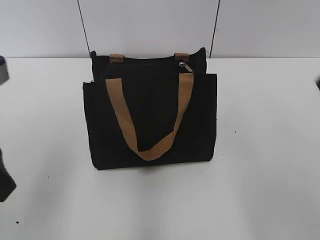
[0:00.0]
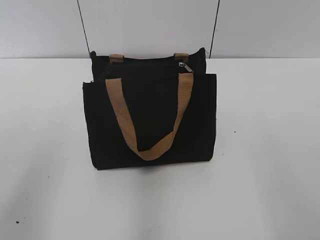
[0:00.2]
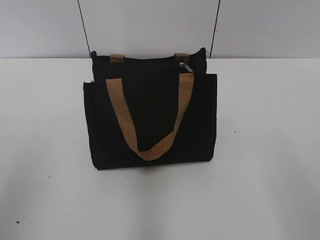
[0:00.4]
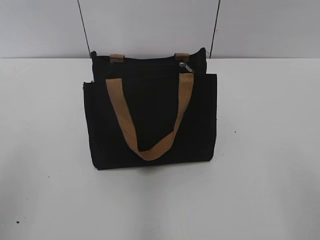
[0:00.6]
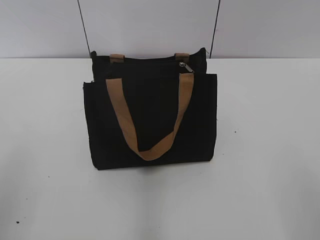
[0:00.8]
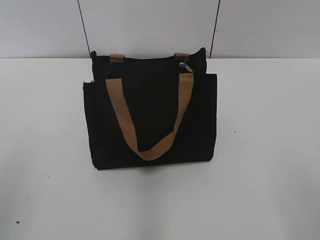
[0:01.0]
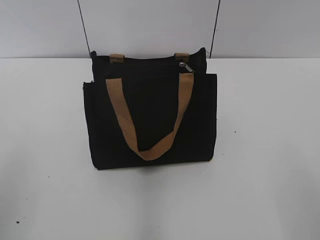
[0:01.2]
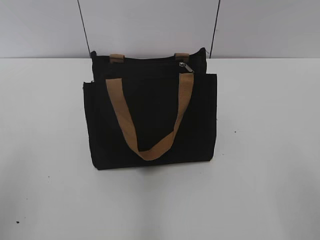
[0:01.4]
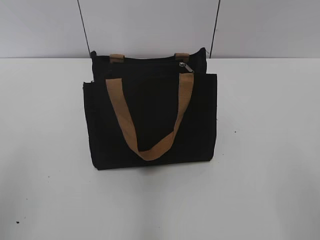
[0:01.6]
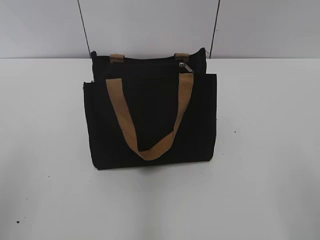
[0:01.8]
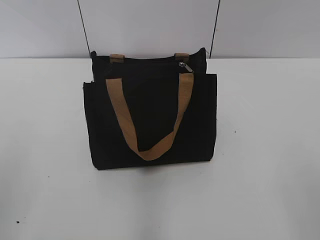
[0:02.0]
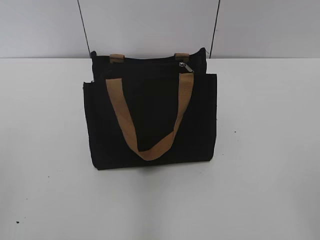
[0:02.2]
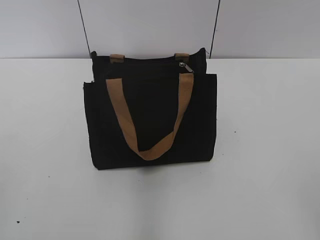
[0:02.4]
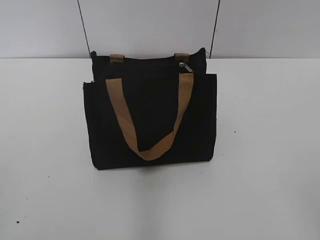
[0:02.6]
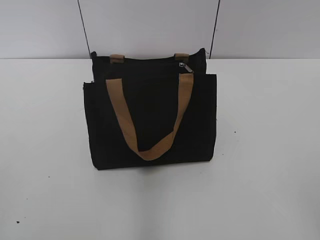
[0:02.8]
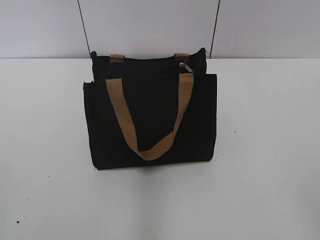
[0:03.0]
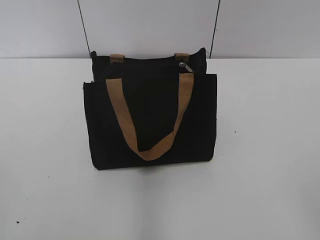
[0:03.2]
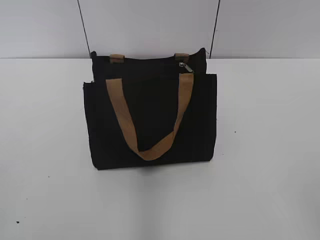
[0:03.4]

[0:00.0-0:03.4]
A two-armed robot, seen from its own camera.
0:00.0 to 0:01.6: The left gripper goes roughly 10 cm backward and to the left.

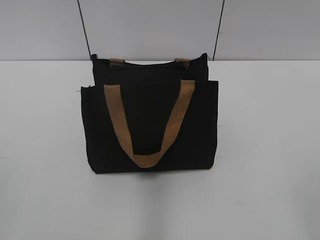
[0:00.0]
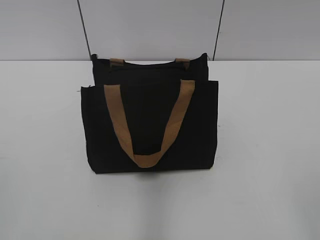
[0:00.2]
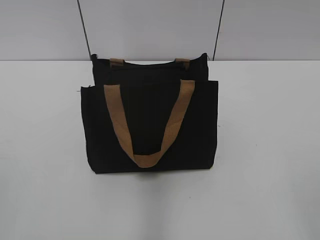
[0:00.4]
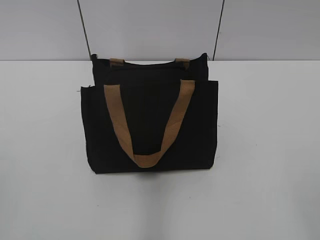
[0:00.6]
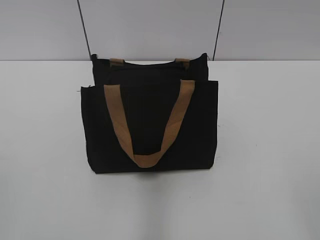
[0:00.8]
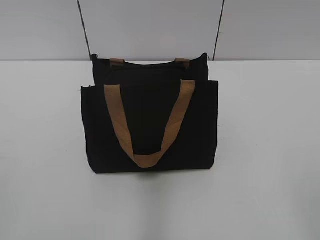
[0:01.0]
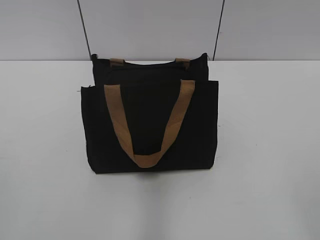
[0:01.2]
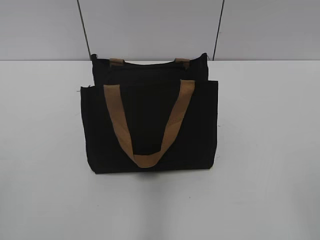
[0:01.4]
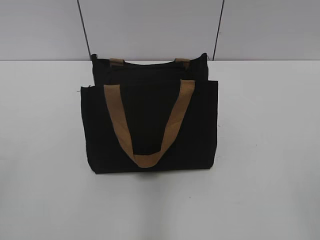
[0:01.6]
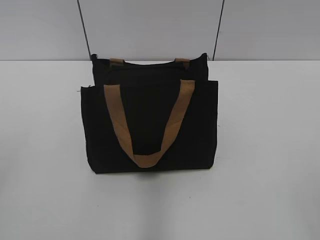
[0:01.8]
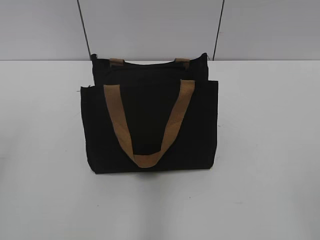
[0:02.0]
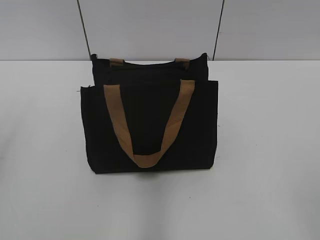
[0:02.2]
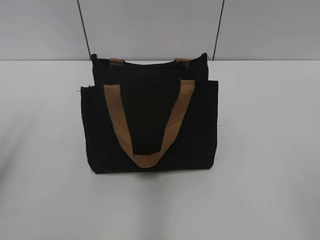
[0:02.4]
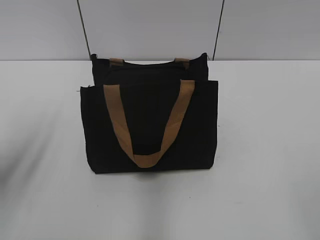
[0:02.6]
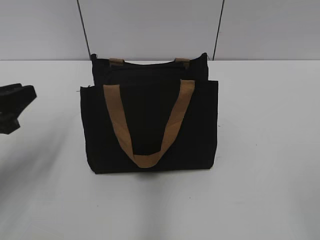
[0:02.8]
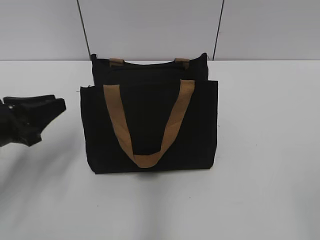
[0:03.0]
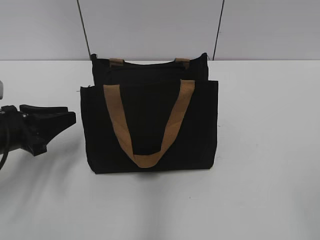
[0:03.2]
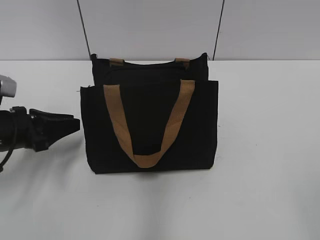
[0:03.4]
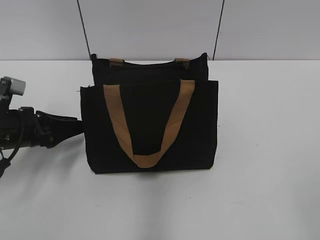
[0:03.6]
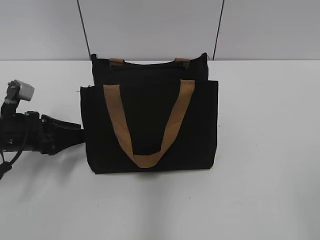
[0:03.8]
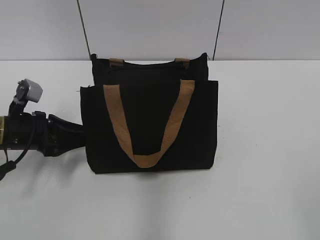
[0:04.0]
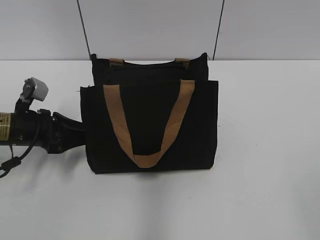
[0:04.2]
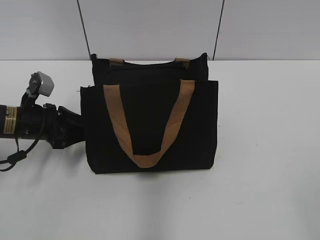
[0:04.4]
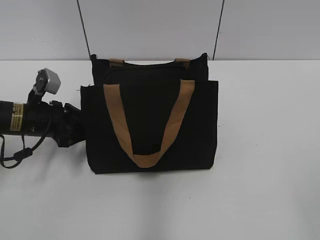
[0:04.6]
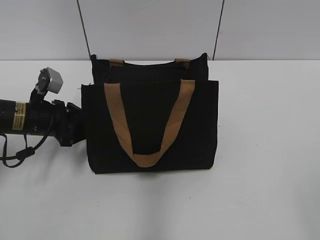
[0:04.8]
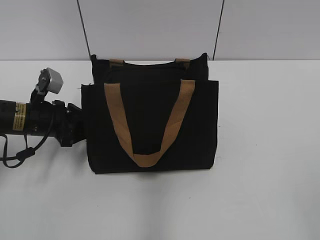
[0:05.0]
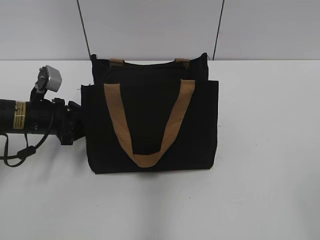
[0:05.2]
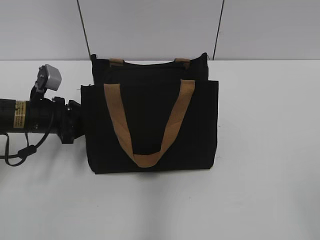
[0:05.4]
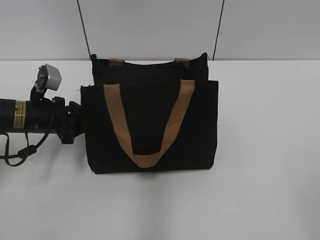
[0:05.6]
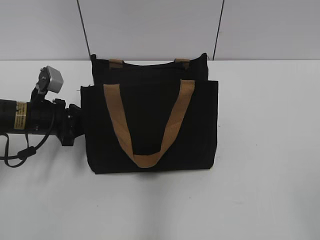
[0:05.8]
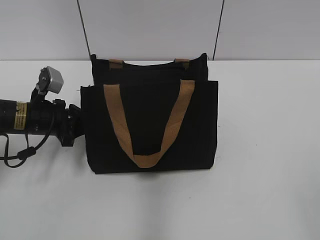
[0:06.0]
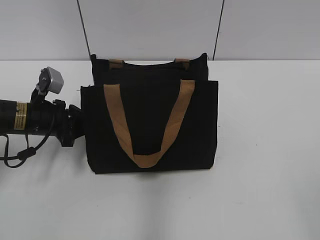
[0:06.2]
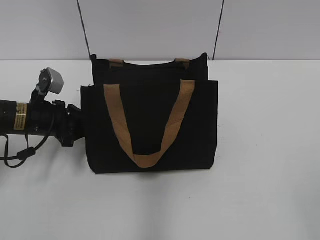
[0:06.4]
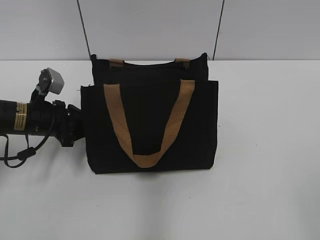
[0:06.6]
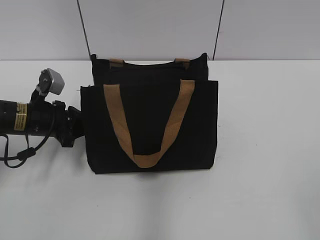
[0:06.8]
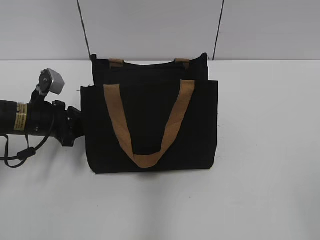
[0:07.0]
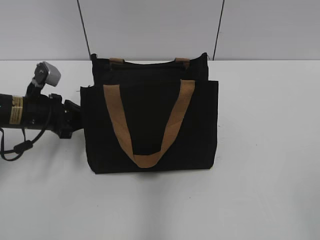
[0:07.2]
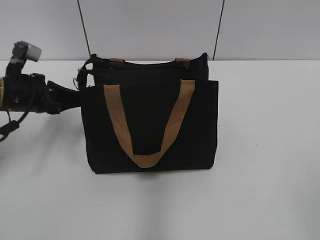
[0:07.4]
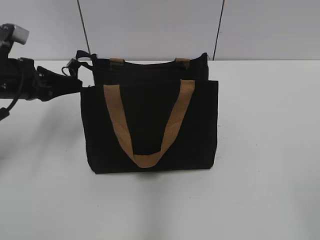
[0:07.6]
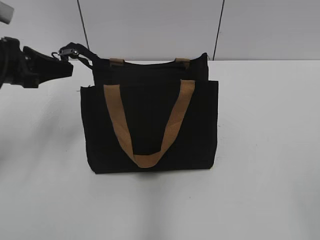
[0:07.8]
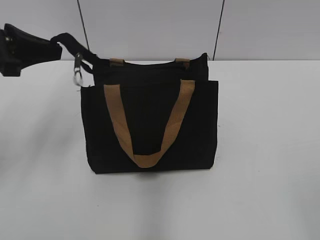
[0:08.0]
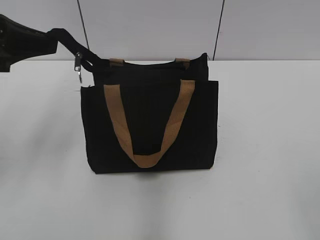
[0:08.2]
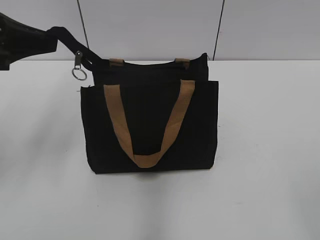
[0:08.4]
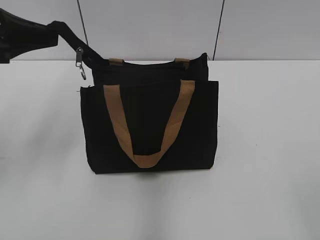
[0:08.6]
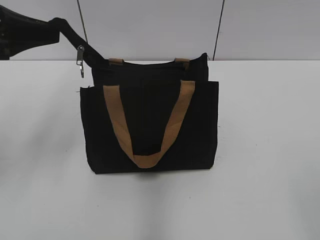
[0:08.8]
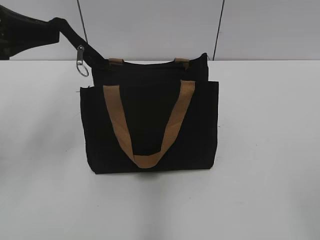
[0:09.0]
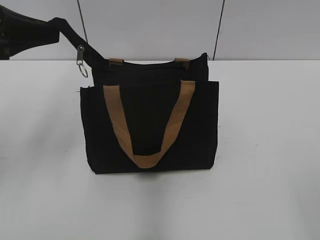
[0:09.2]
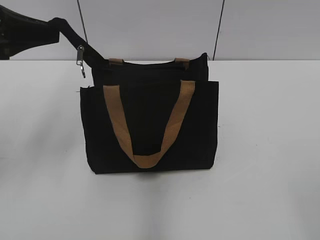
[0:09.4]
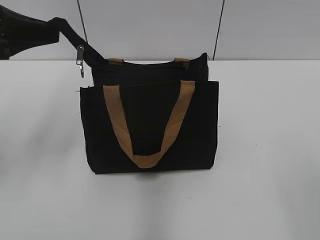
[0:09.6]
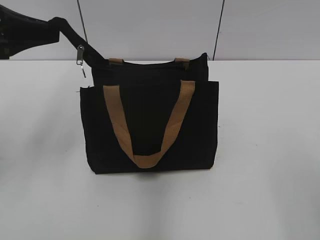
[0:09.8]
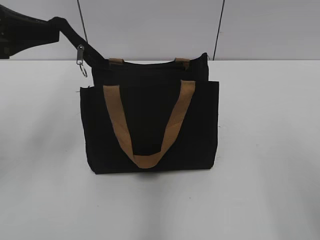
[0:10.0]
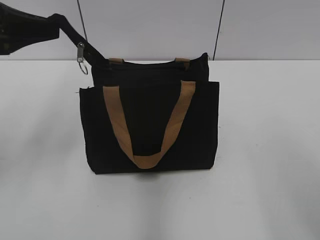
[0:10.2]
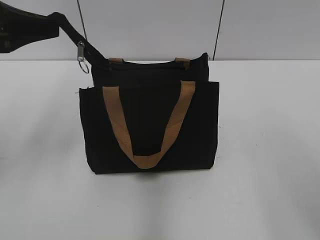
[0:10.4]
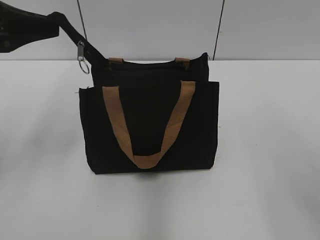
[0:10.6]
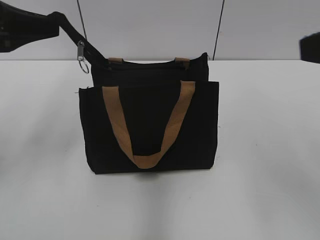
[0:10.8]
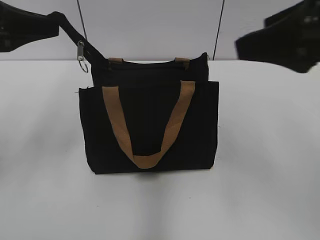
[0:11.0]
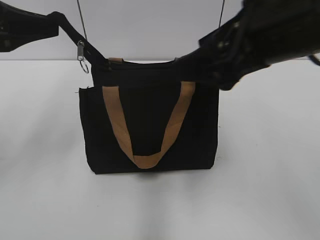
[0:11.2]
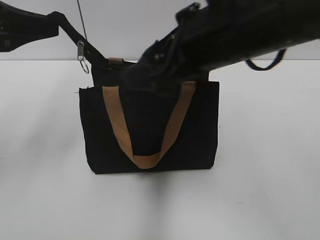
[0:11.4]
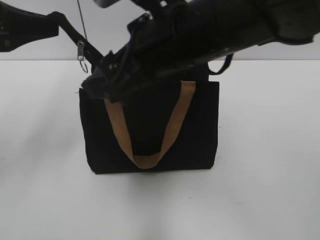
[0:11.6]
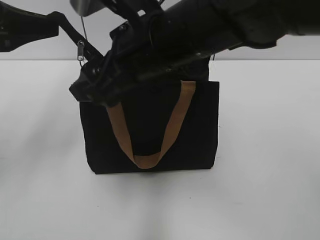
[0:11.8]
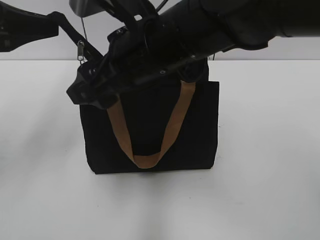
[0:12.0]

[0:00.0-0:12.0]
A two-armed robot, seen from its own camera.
0:01.6 to 0:03.0: The left gripper heads forward and downward, covering about 25 cm.
0:03.0 to 0:04.4: The left gripper moves forward and downward, about 10 cm.
0:04.4 to 0:06.0: The left gripper closes up.
0:06.0 to 0:07.6: The left gripper shifts roughly 10 cm upward.
0:07.6 to 0:09.0: The left gripper shifts about 15 cm upward and backward.
0:10.4 to 0:12.0: The right gripper moves to the left and forward, roughly 30 cm.

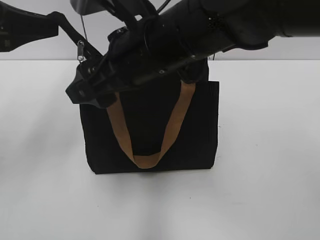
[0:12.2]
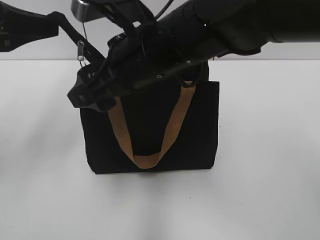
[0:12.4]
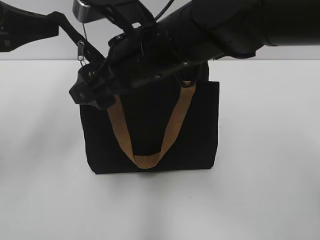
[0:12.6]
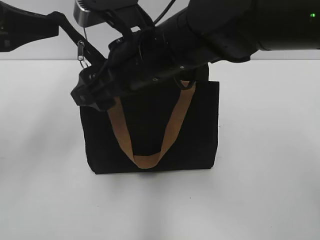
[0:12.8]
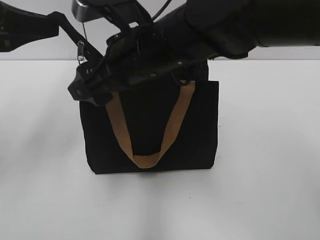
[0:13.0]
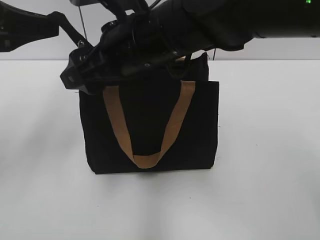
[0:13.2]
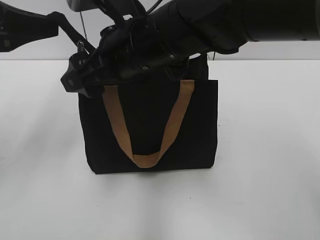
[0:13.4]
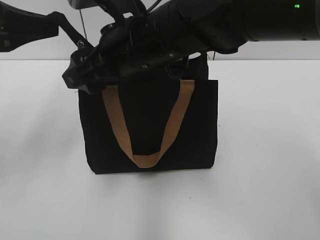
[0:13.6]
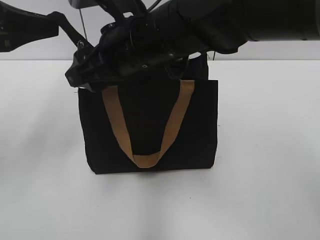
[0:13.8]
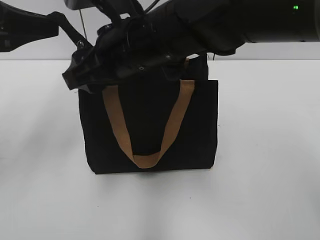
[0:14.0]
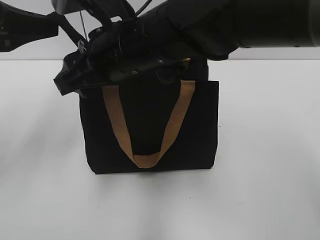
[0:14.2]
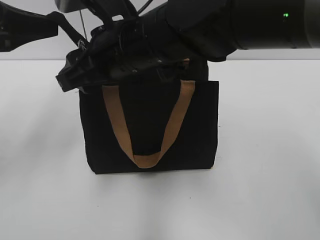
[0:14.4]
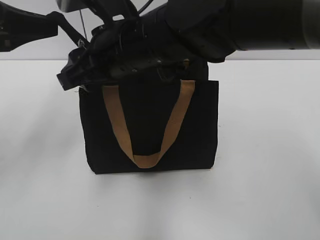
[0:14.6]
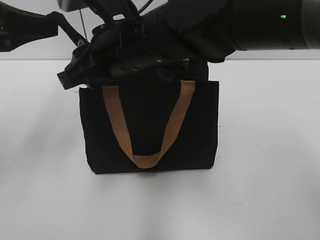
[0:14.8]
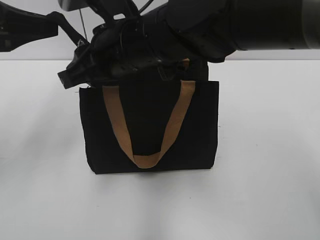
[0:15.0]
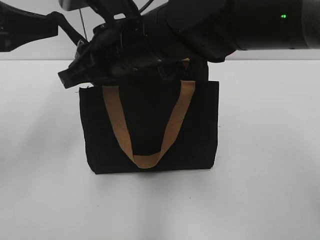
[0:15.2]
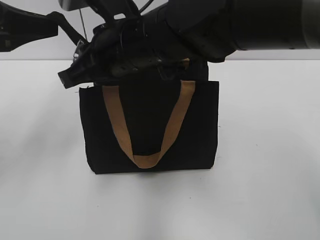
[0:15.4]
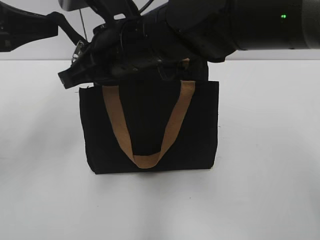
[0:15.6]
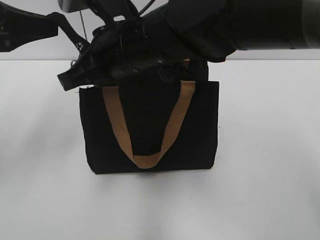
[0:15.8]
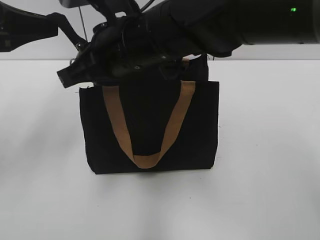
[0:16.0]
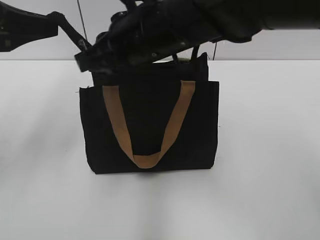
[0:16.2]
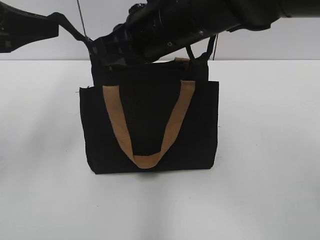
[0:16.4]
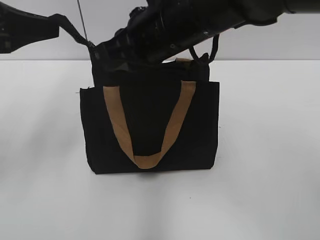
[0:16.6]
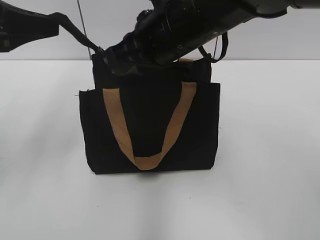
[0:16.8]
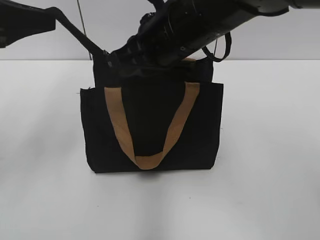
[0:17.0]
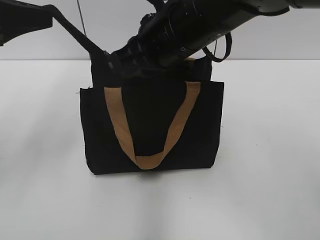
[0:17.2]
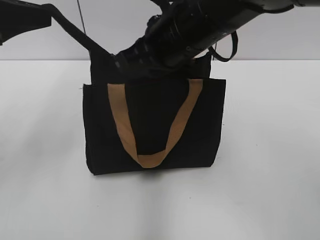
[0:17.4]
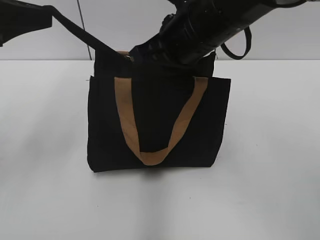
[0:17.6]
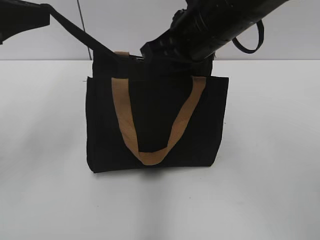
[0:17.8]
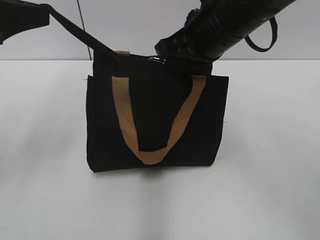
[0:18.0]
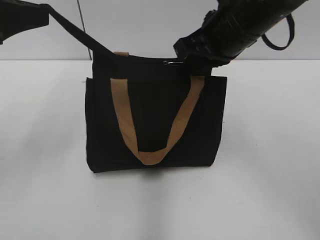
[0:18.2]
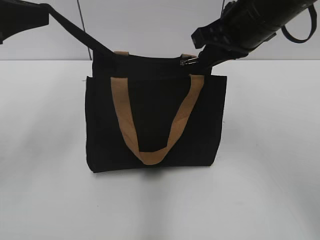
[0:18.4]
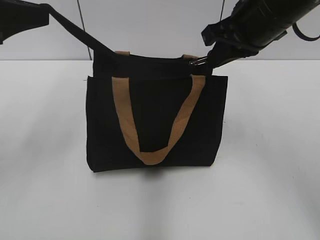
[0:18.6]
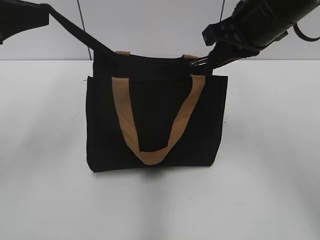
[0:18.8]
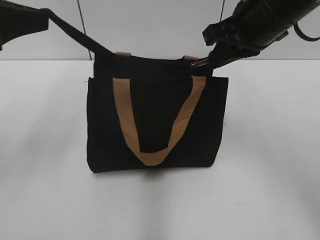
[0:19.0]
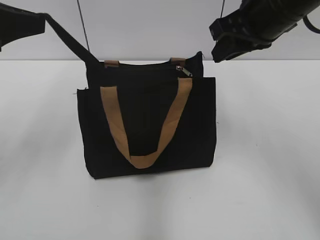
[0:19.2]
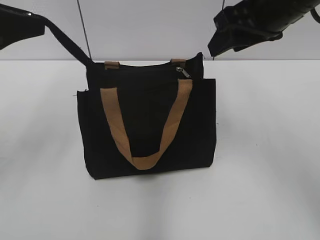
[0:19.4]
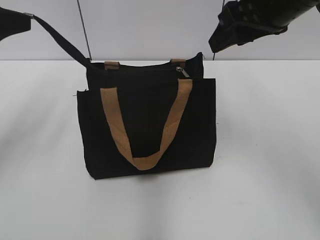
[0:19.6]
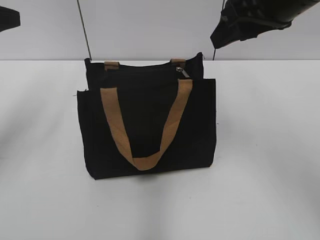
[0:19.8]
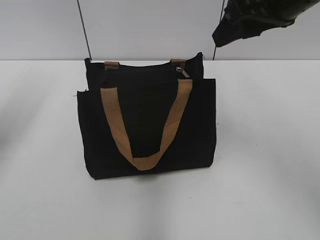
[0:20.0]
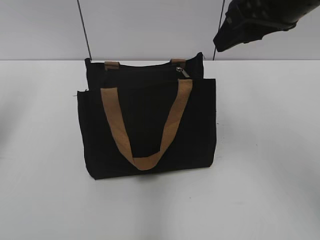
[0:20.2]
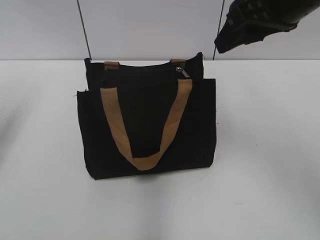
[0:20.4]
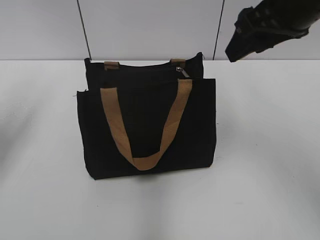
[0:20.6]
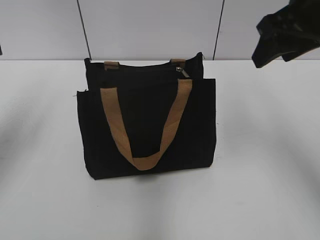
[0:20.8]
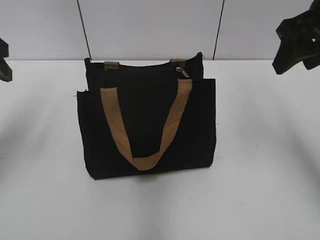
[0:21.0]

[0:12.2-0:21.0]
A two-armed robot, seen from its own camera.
Step, 0:12.2 to 0:19.0: Zip up the bag with your right hand.
Step, 0:19.2 to 0:19.6: Grab the zipper with your left hand.
0:12.2 to 0:13.6: There are only small adjustments of the grippers.
0:13.6 to 0:15.2: The right gripper closes its fingers.
0:15.2 to 0:16.6: The right gripper moves approximately 5 cm.
0:16.6 to 0:18.0: The right gripper shifts roughly 5 cm to the right.
0:18.0 to 0:19.6: The right gripper moves to the right, roughly 5 cm, and opens; the left gripper opens.
0:19.6 to 0:21.0: The right gripper is displaced to the right by roughly 5 cm.